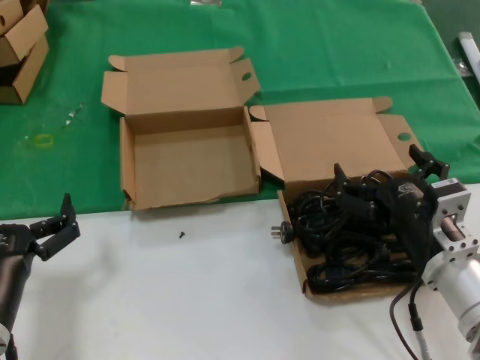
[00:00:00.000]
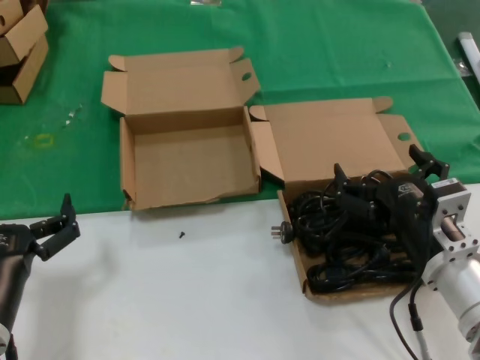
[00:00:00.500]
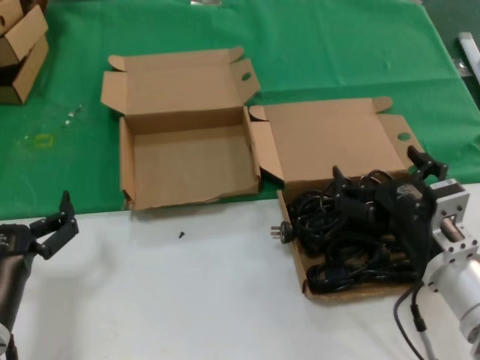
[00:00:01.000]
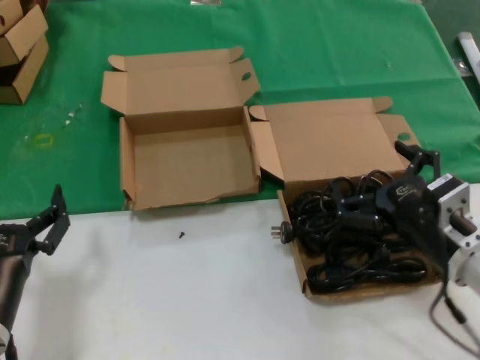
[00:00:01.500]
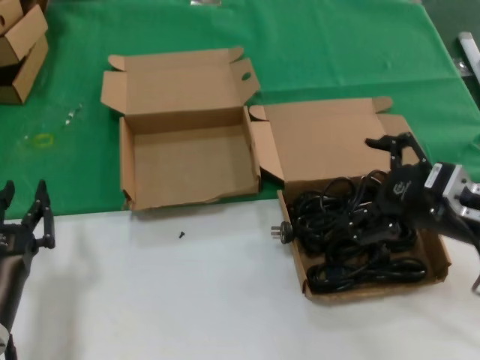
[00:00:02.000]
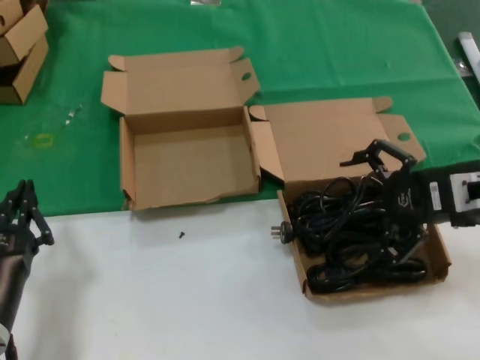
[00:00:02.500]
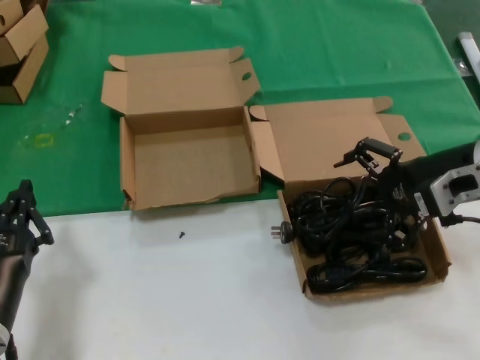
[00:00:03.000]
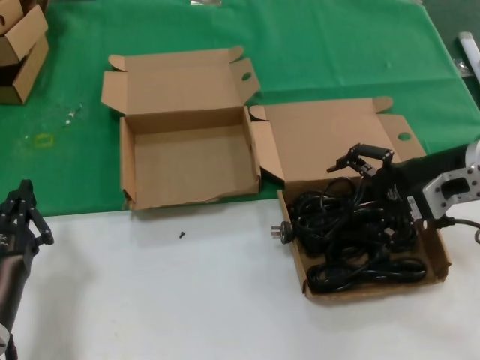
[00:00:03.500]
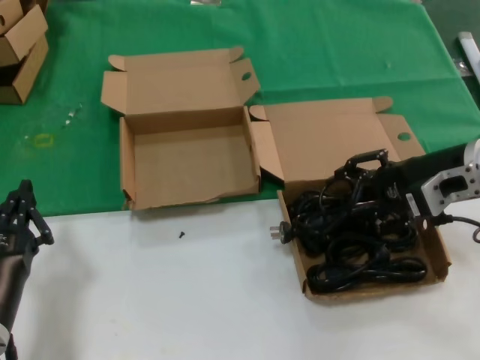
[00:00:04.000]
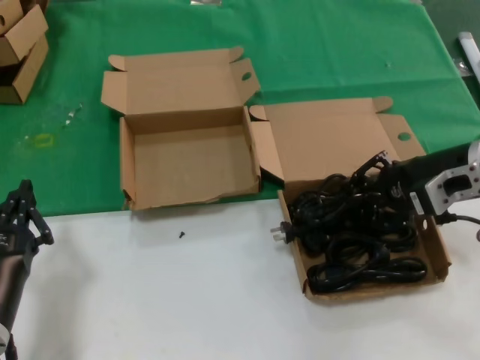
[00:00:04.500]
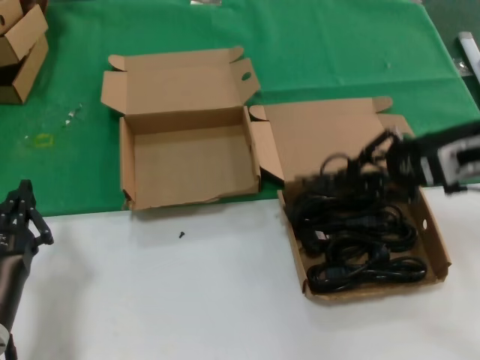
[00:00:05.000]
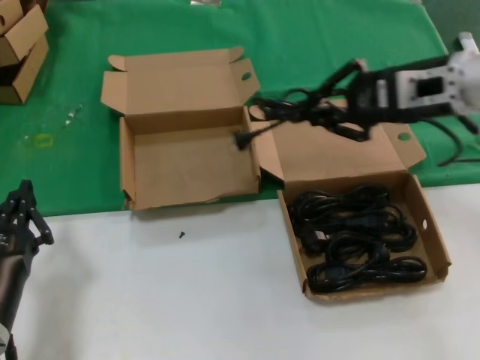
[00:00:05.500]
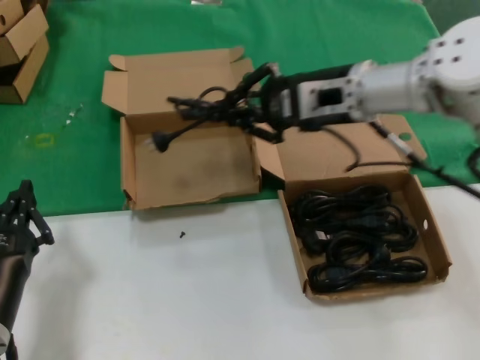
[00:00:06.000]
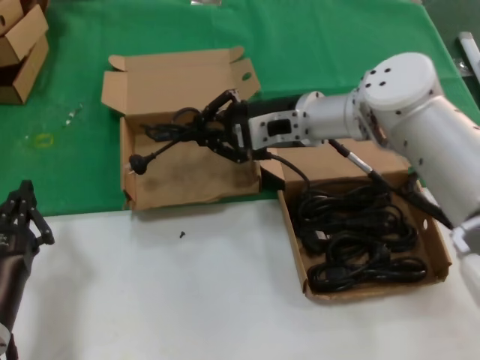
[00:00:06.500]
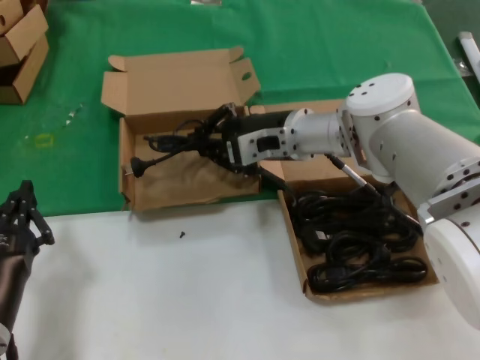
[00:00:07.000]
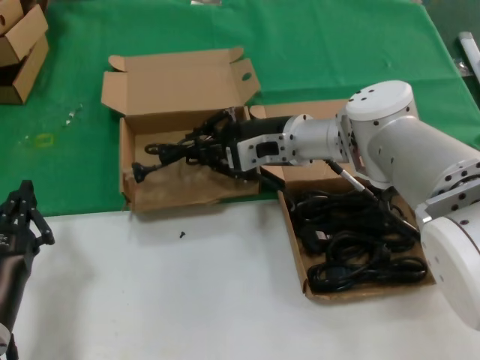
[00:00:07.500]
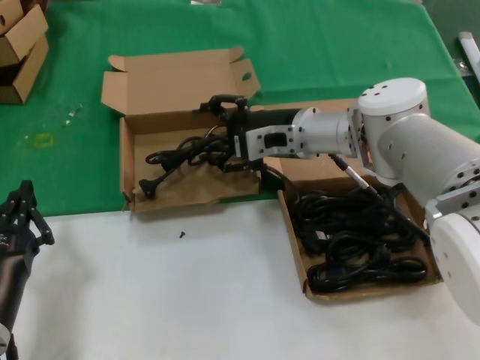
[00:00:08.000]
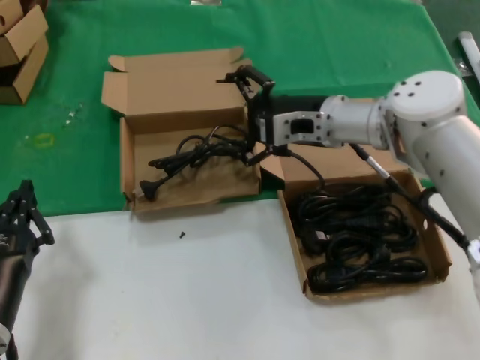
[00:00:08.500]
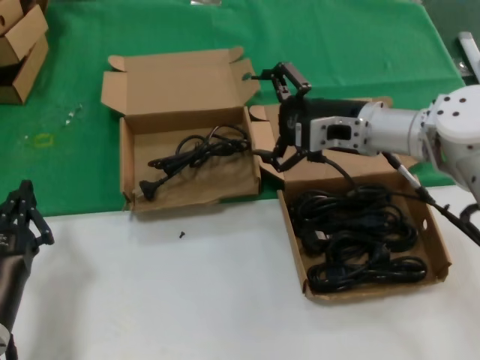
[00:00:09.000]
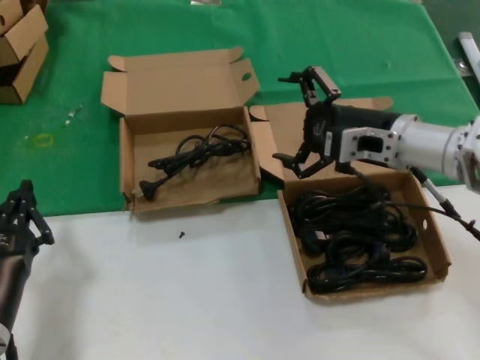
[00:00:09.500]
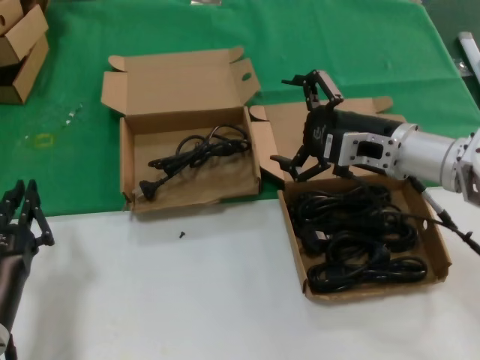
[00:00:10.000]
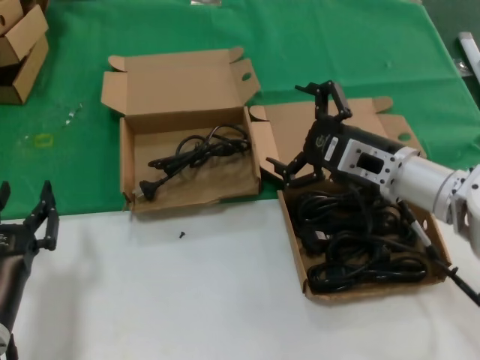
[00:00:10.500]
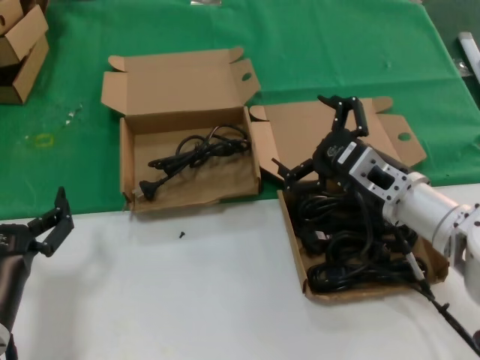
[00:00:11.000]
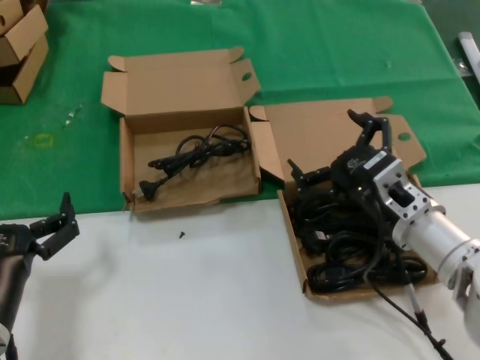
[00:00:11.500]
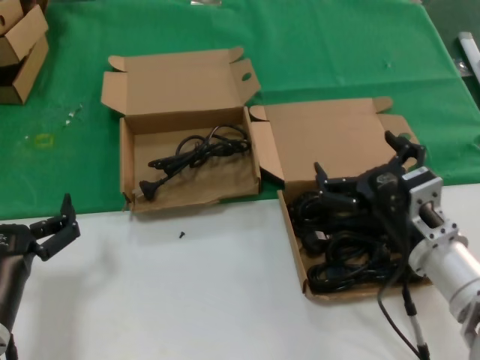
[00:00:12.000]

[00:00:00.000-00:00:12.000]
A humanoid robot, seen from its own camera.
Task of the whole recording: take the parts from the box containing them and put them into an empty box.
Step, 00:00:00.000 to 00:00:04.000: Grasp the data cable.
Step, 00:00:04.500 to 00:00:07.500: Place the data cable in the another box.
00:00:00.000 to 00:00:02.000: The right hand heads to the right and upward, covering about 10 cm.
00:00:02.000 to 00:00:04.000: The right hand moves forward, approximately 10 cm.
00:00:04.000 to 00:00:06.000: The right hand travels to the left, forward and upward by some 15 cm.
00:00:06.000 to 00:00:08.000: The right hand travels downward and to the left by about 10 cm.
00:00:08.000 to 00:00:10.000: The right hand goes approximately 15 cm to the right and backward.
00:00:10.000 to 00:00:12.000: The right hand moves backward and downward, about 15 cm.

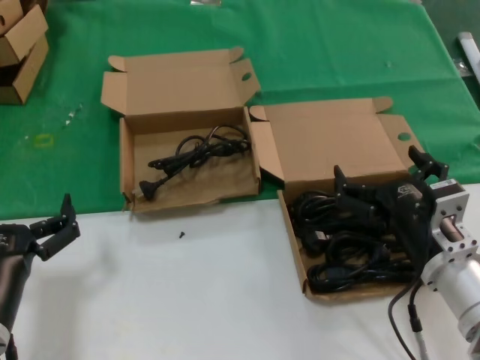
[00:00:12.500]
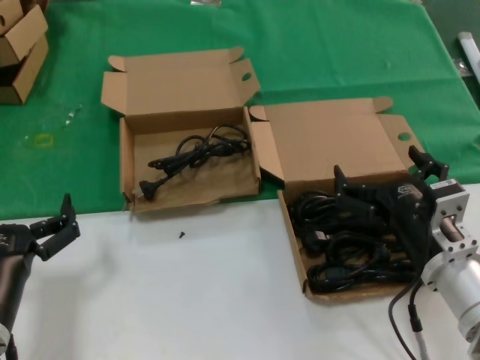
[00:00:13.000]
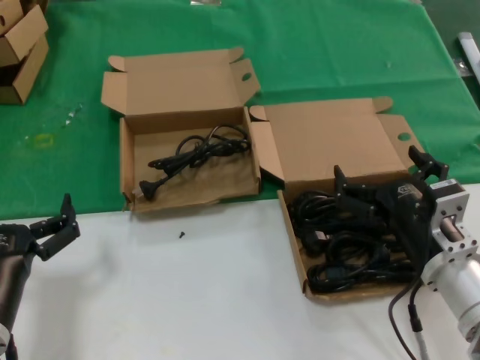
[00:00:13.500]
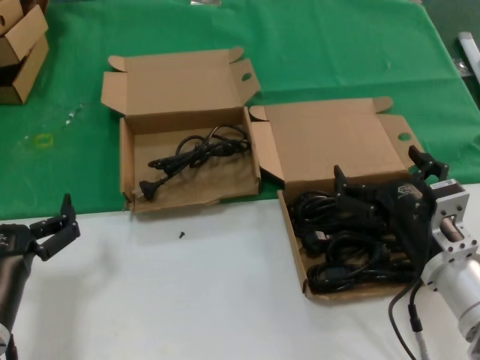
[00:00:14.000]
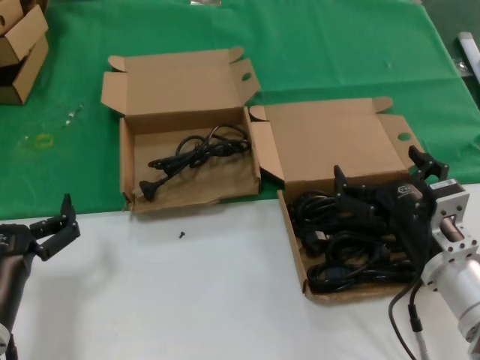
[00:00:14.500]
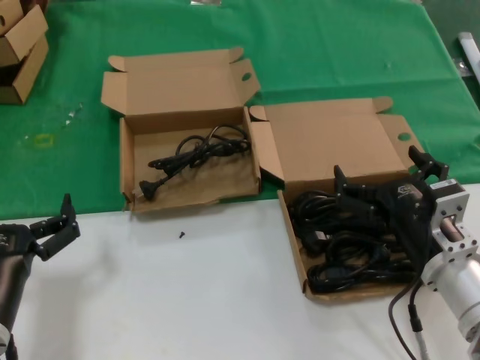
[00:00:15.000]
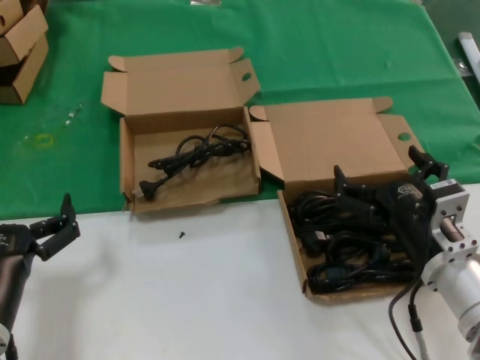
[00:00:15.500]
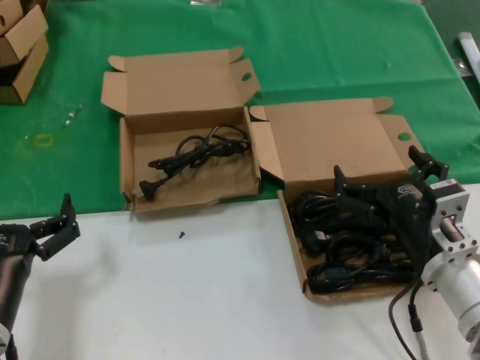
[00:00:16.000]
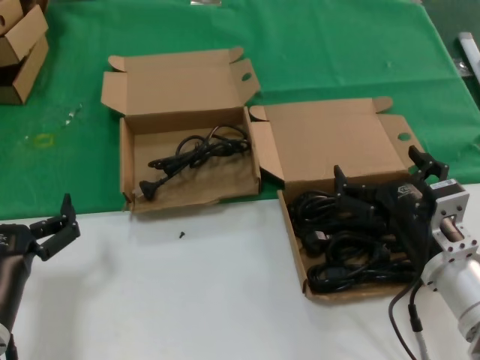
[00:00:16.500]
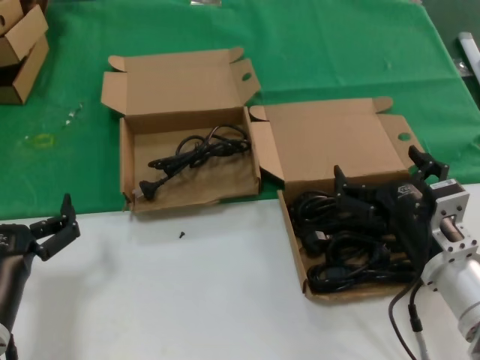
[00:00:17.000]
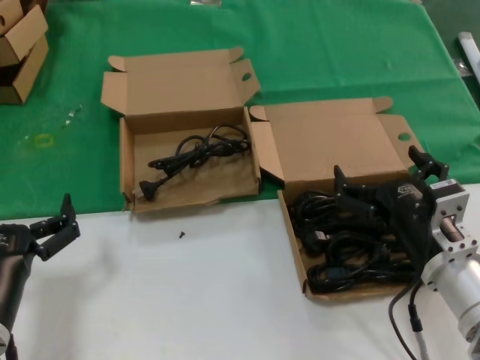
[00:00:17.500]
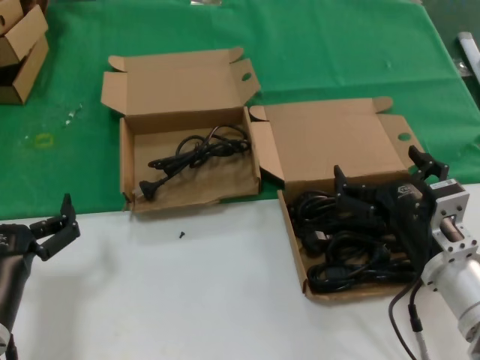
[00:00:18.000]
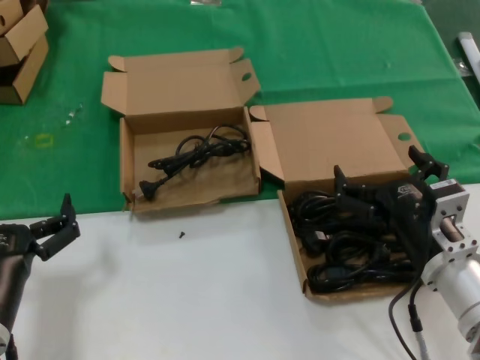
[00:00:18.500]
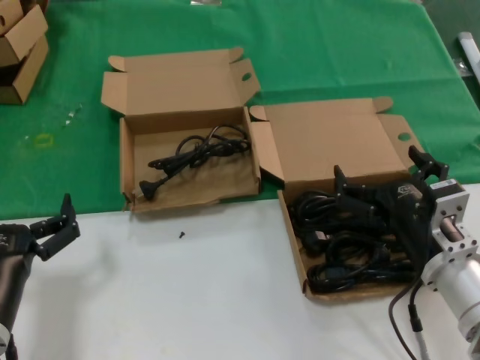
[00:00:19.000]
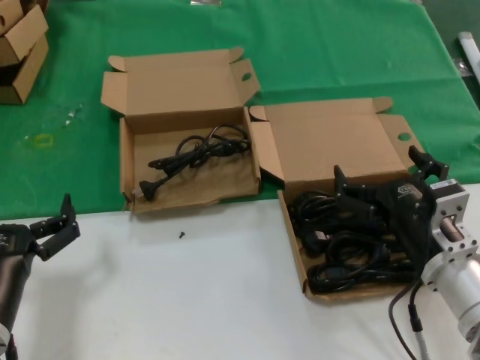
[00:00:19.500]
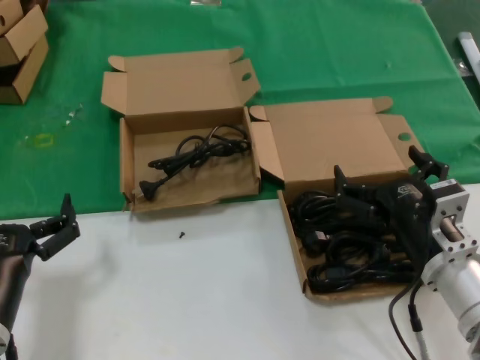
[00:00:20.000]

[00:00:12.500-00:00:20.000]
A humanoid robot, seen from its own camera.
Task of the whole recording: take the parts from the box containing them and put them into an empty box.
00:00:12.500 to 00:00:20.000: The two hands keep their place.
